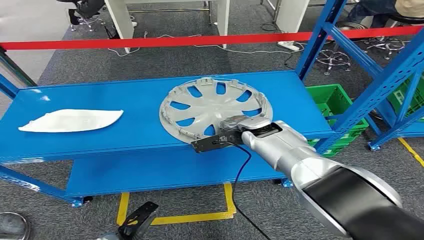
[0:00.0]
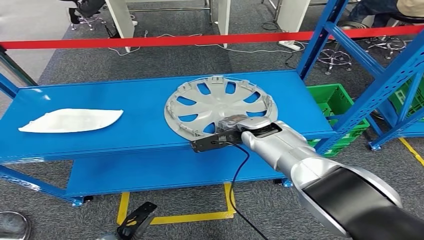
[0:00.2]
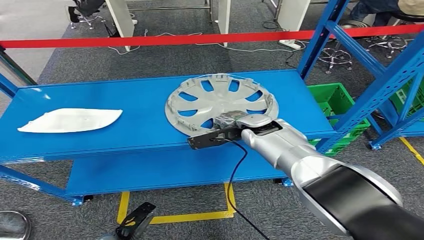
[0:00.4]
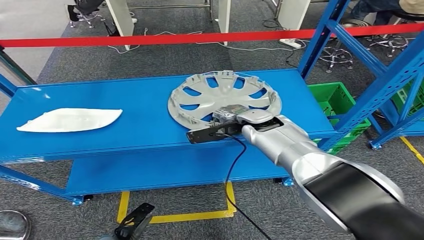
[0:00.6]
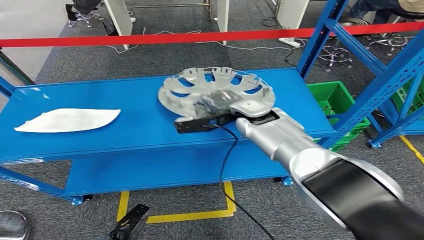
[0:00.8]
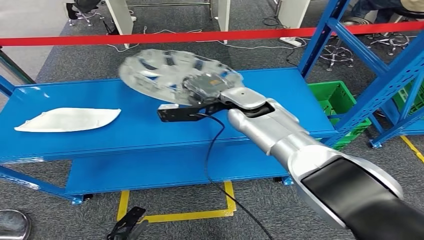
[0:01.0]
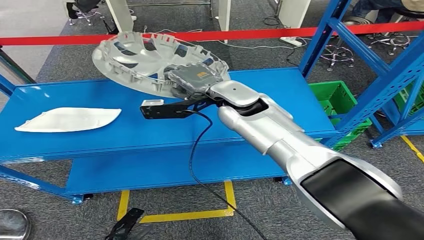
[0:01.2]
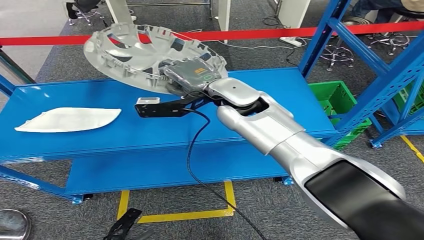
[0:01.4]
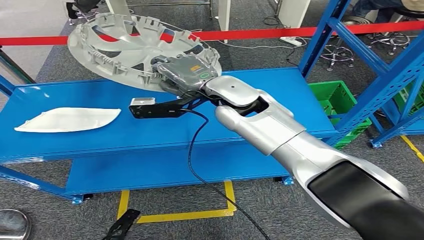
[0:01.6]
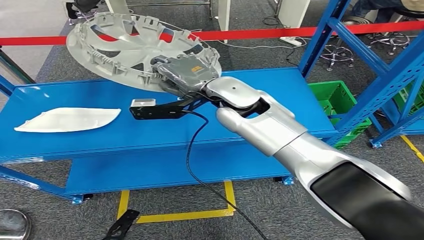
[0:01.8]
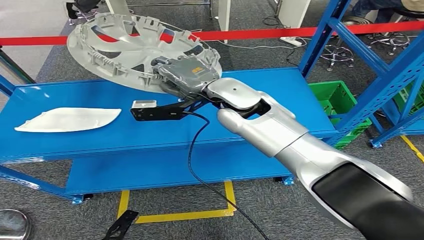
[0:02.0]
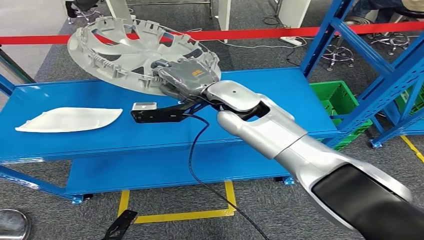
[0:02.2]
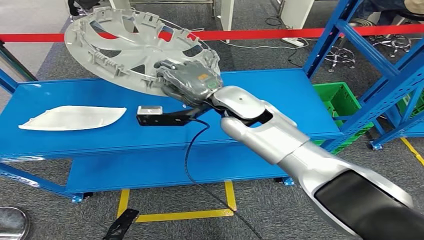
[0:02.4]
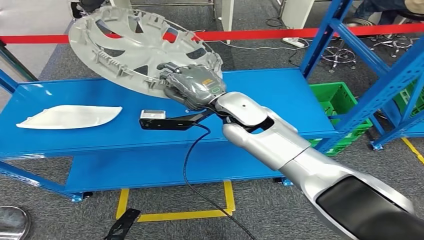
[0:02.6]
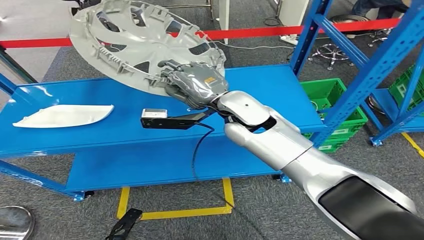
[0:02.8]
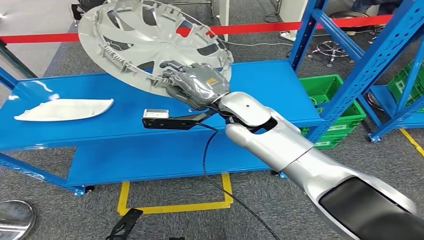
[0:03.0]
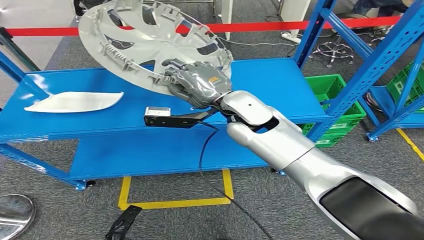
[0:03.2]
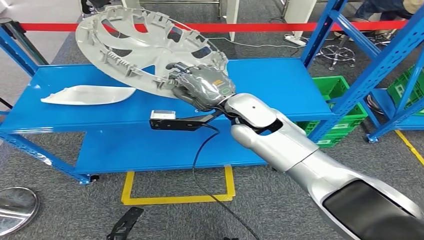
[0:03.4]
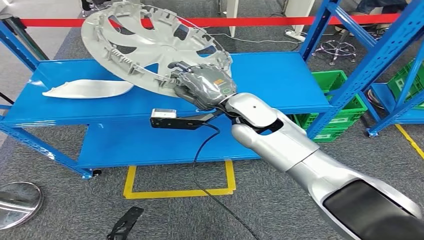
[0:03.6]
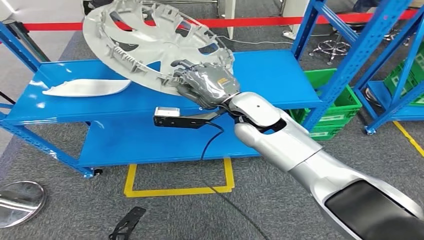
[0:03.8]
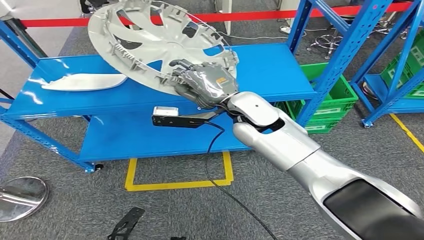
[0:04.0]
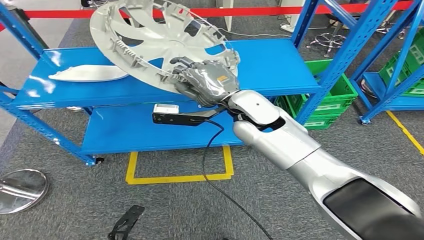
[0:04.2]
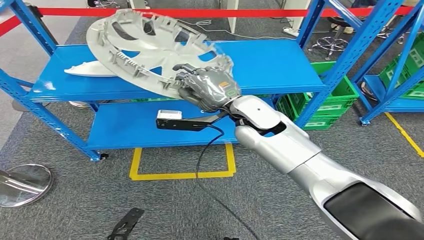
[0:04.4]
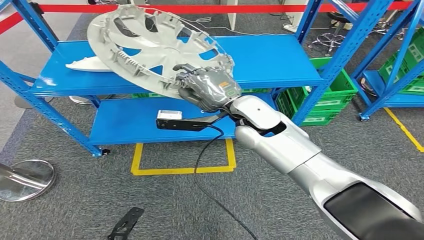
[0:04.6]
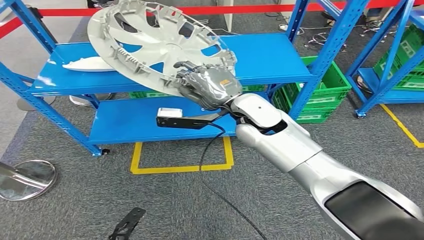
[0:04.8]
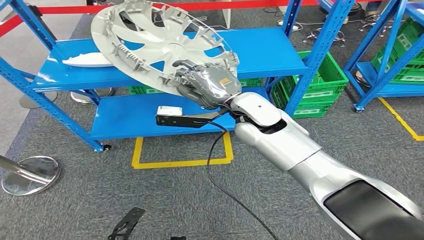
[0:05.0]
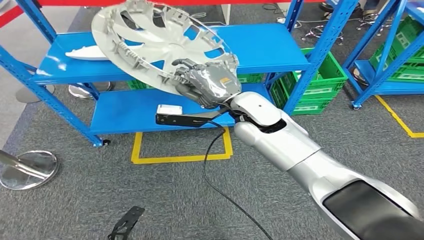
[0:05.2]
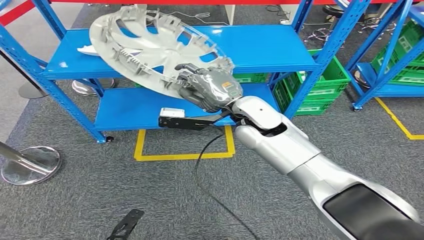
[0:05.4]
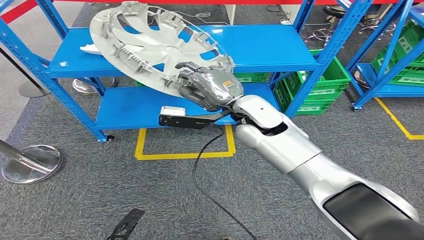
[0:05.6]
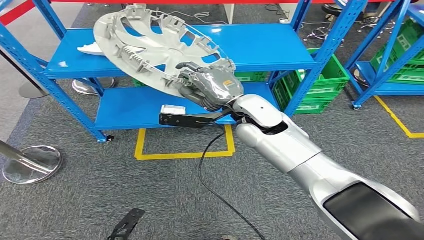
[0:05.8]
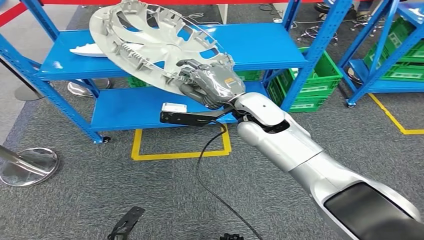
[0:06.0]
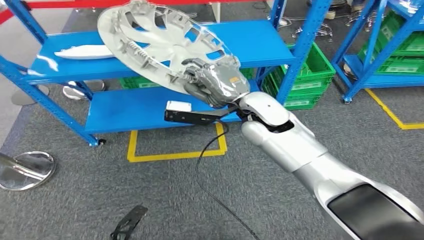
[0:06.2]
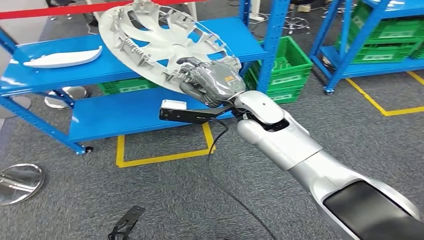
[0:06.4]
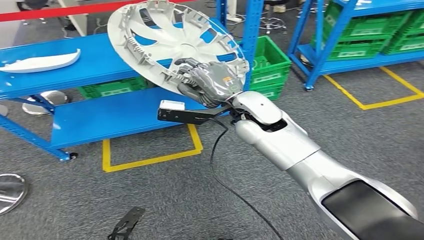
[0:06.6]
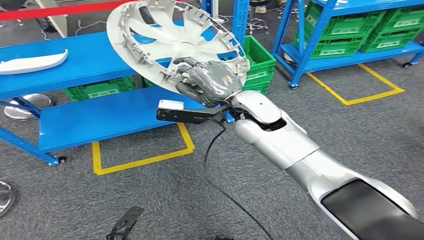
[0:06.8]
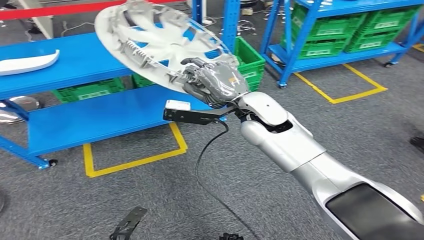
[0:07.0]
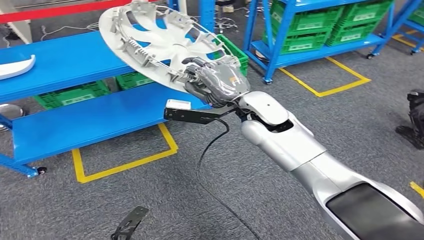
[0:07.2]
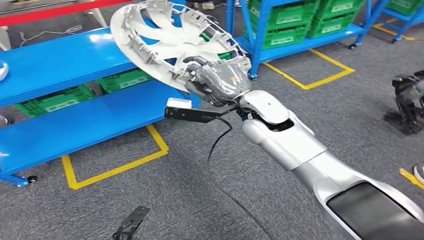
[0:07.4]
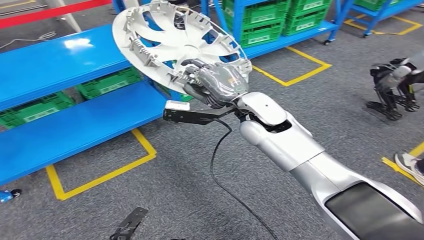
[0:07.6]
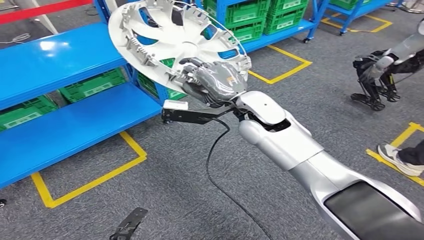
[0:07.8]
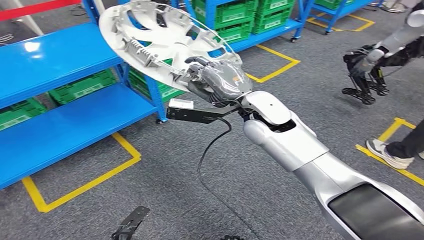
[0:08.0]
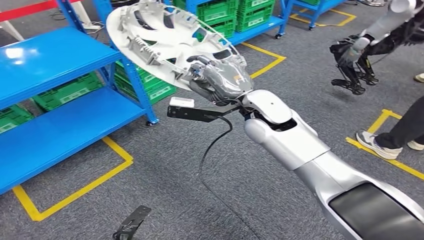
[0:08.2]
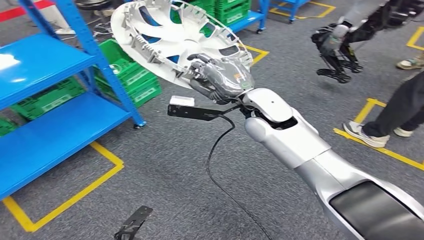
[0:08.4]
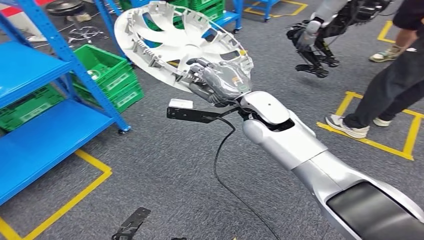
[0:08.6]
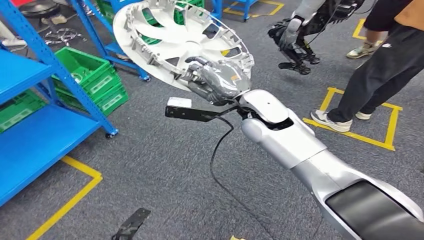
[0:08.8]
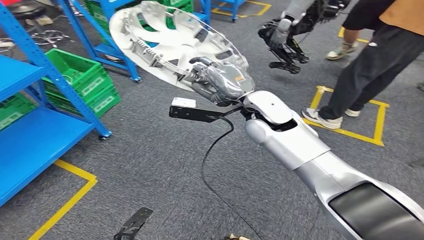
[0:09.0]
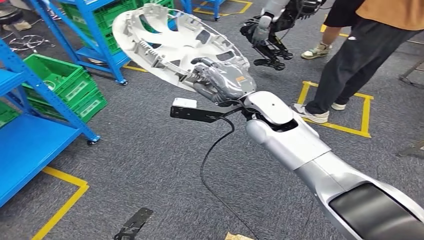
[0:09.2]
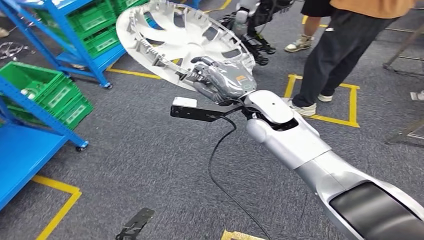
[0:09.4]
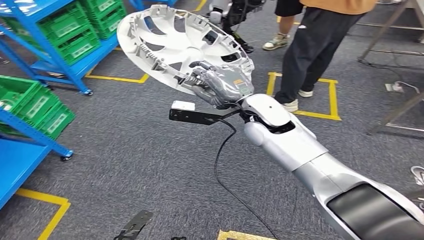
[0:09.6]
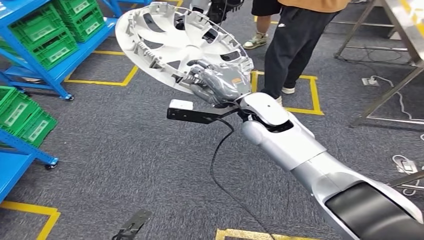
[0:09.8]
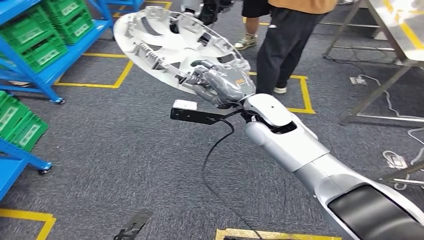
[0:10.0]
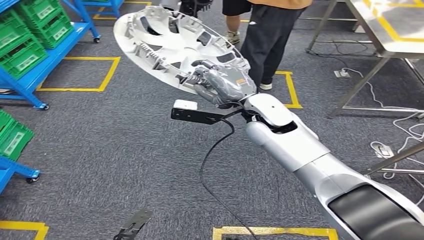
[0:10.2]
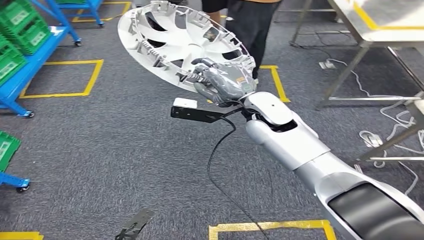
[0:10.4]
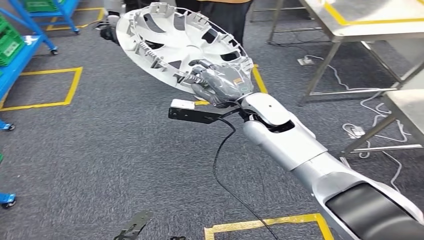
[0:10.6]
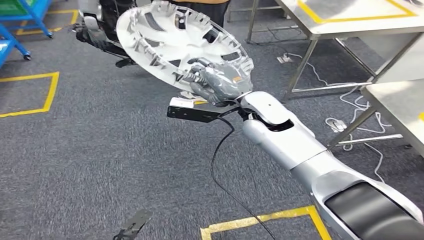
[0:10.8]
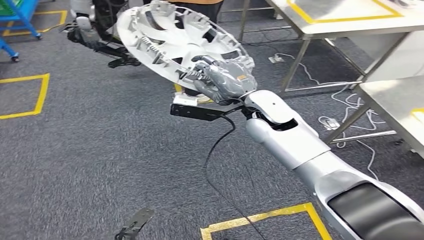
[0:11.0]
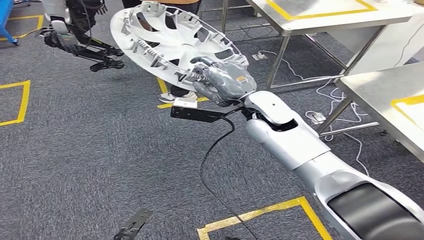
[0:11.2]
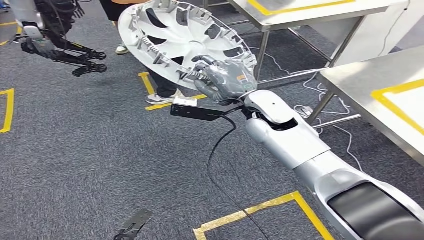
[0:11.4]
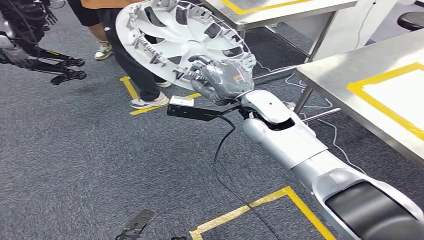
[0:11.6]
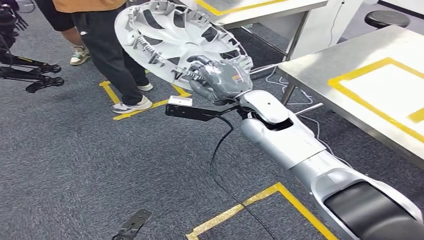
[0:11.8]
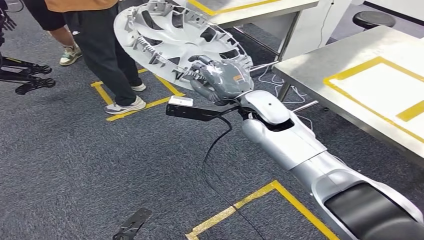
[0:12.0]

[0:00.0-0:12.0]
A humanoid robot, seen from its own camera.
Step, 0:00.0 to 0:01.6: Pick up the small component from the shelf.

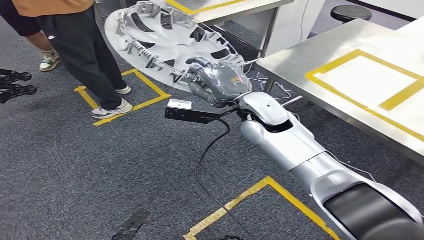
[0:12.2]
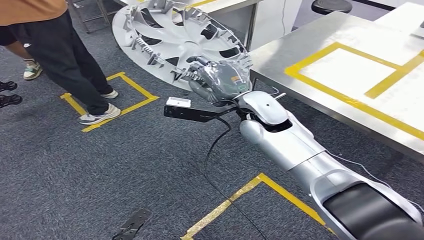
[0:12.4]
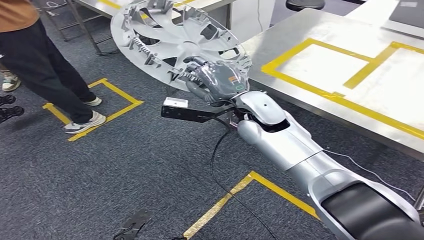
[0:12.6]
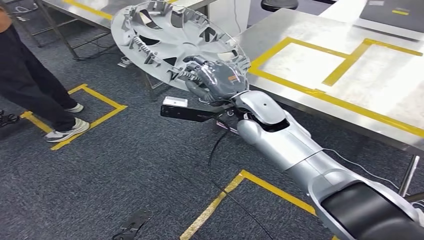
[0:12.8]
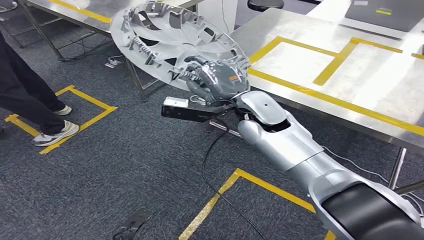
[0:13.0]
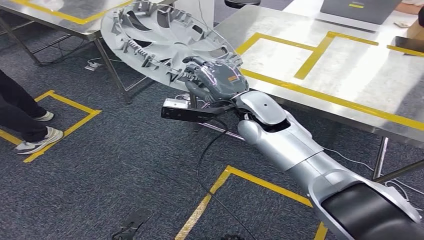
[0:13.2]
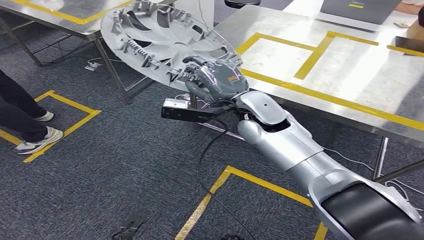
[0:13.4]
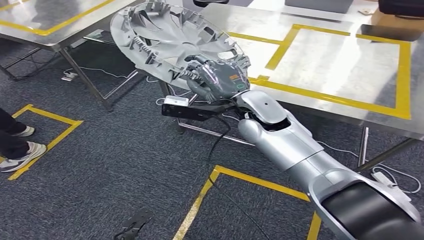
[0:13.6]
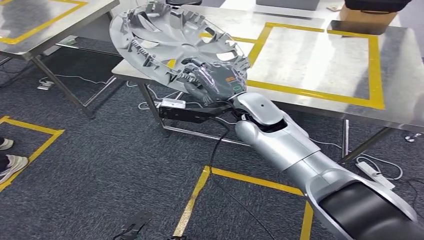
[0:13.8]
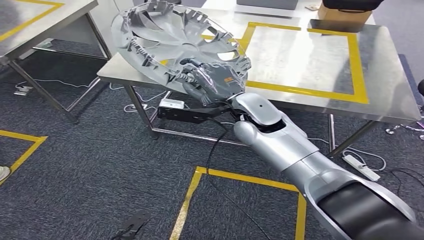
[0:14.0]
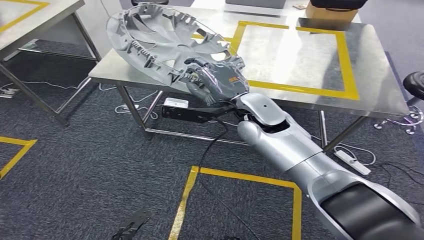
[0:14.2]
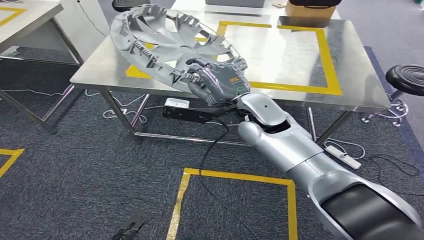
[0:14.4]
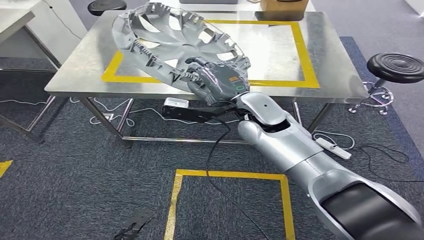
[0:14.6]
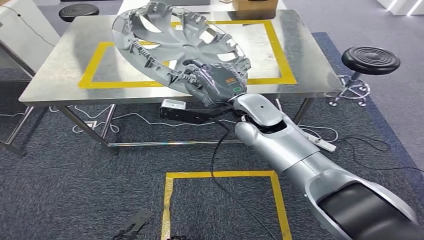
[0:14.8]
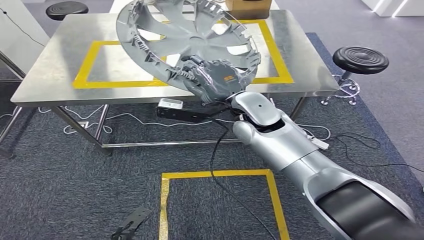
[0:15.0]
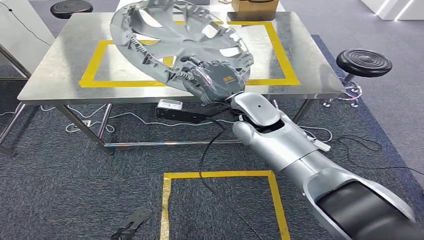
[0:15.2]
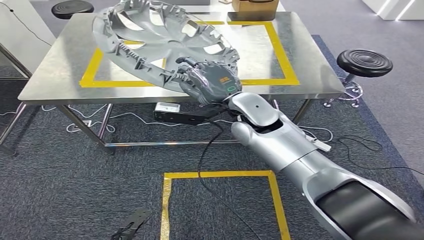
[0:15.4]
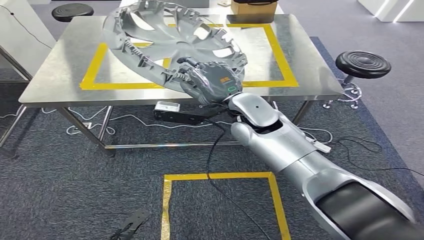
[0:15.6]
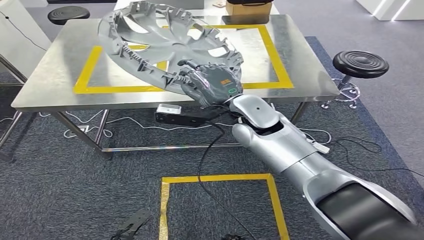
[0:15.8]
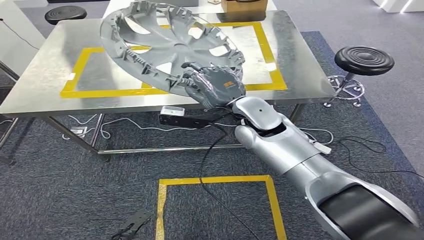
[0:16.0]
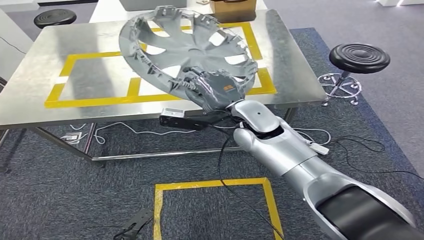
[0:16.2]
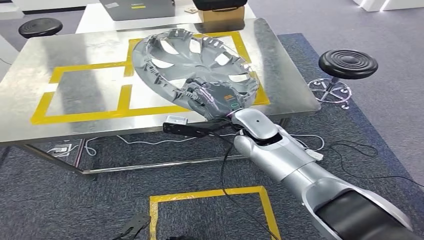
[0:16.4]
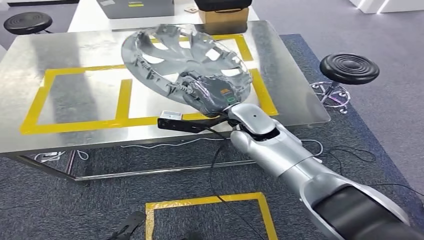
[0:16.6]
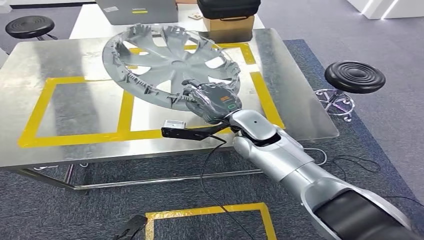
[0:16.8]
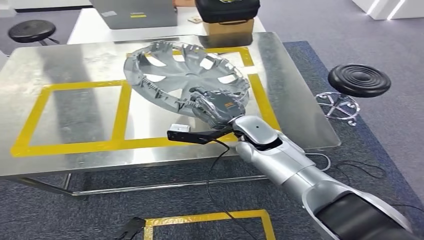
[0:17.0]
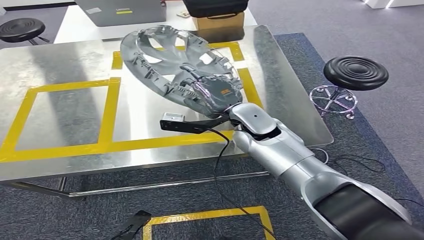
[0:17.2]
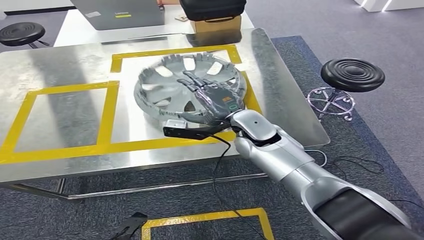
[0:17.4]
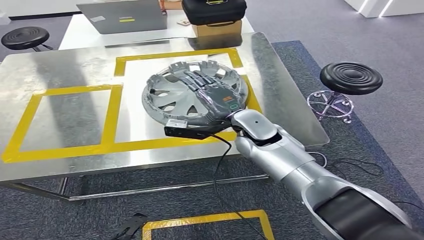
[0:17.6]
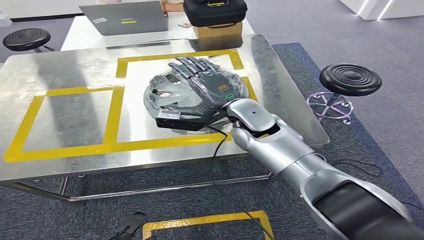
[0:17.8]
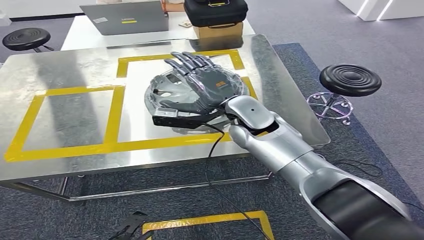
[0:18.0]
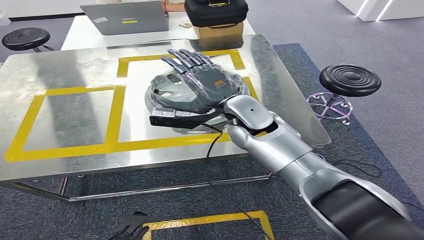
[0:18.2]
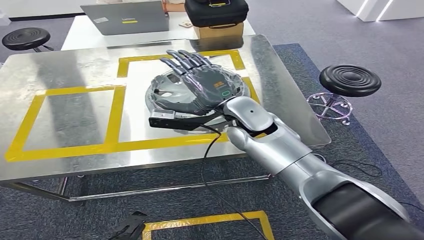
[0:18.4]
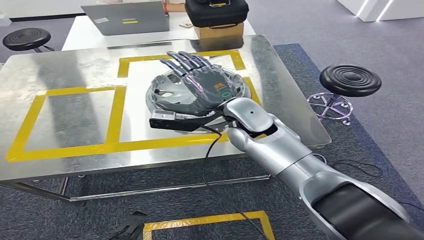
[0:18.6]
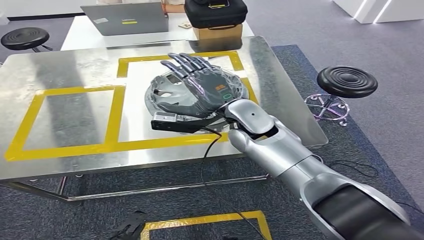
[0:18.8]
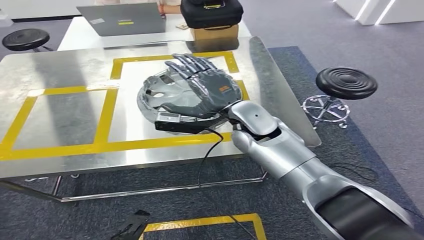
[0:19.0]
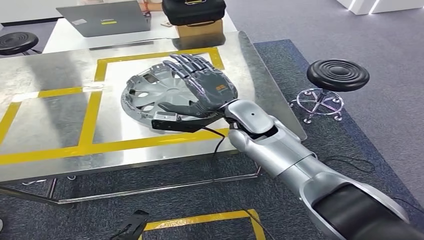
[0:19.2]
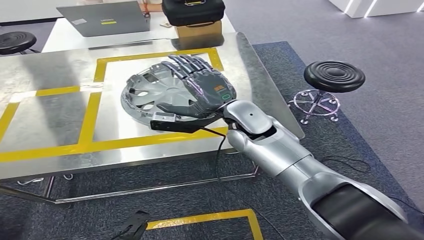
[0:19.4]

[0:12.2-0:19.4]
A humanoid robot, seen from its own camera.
Step, 0:12.2 to 0:15.4: Bring the small component to the front of the workbench.
